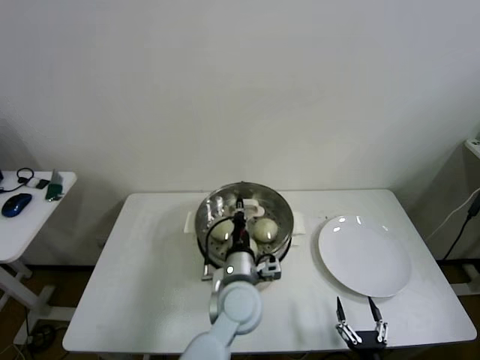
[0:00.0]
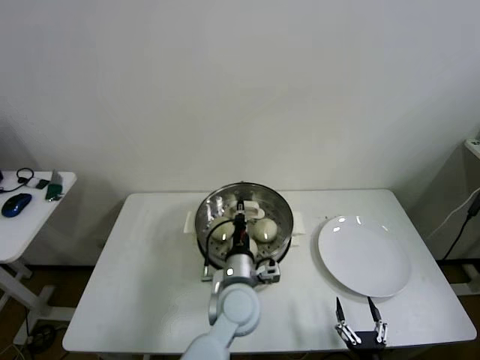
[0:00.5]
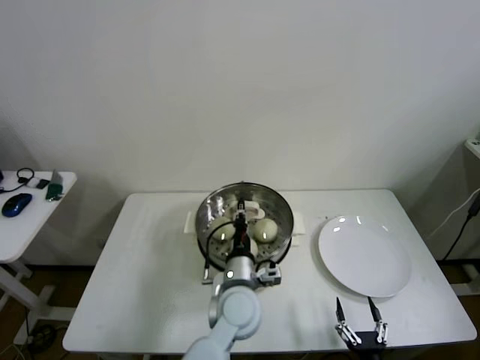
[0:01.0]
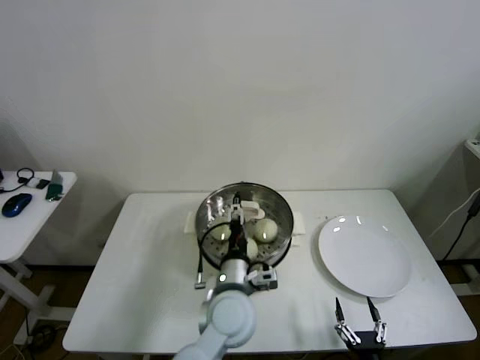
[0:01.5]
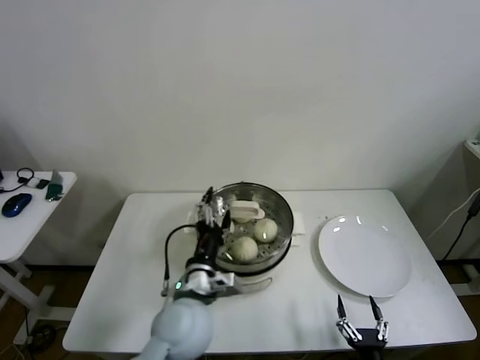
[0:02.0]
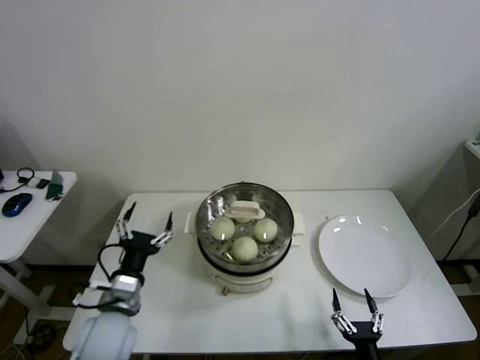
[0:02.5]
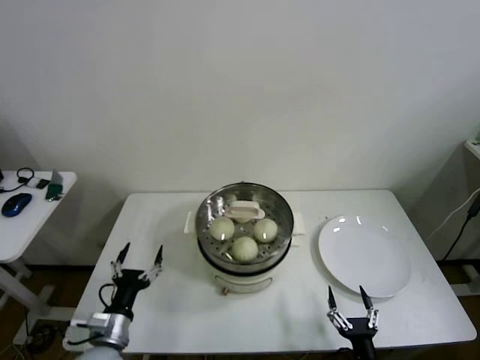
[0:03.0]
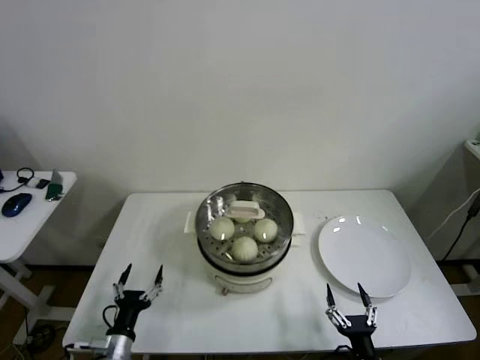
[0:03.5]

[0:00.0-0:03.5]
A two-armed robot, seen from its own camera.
0:00.0 to 0:02.0: The left gripper goes about 10 cm to the left, and opens its fingers.
0:02.0 to 0:03.5: The left gripper heads to the left and downward, covering about 30 cm.

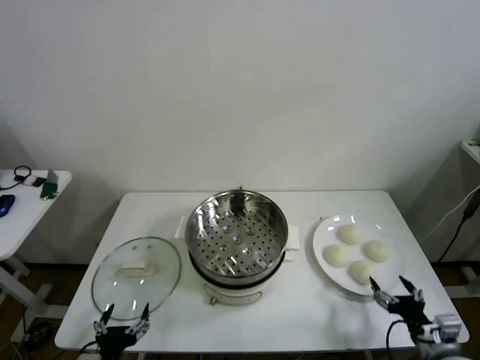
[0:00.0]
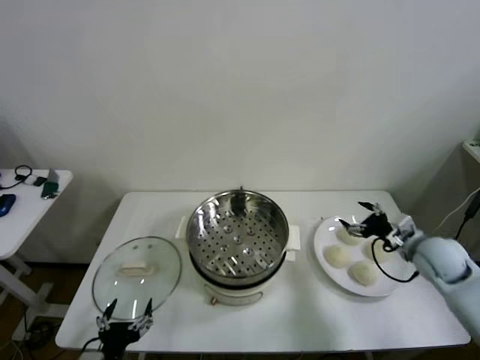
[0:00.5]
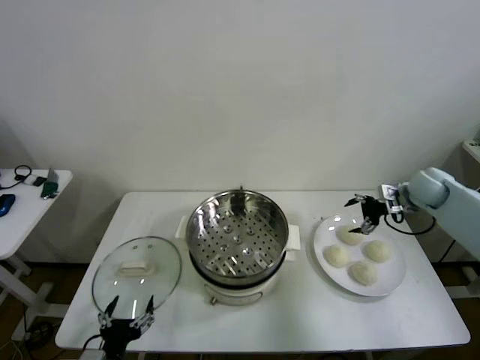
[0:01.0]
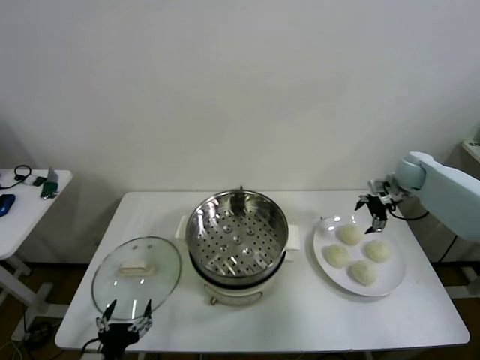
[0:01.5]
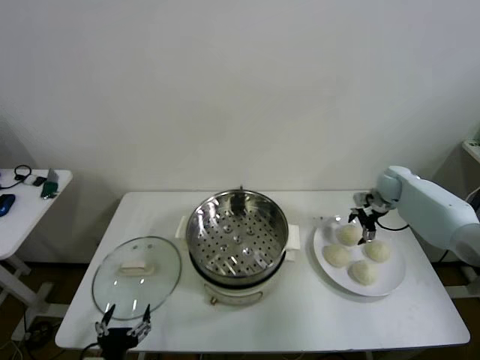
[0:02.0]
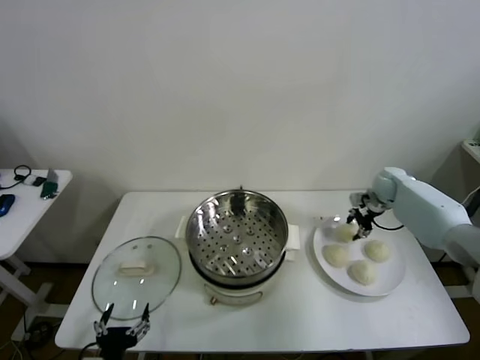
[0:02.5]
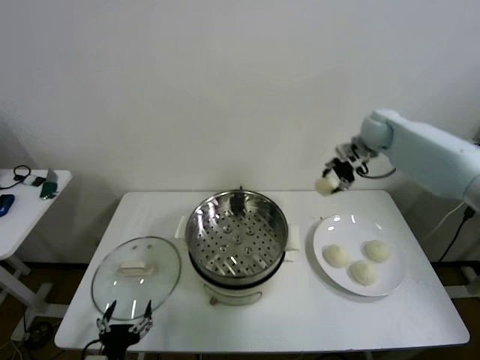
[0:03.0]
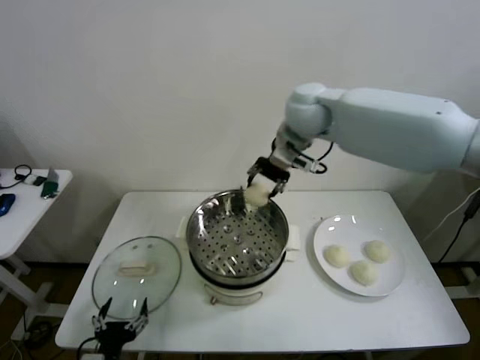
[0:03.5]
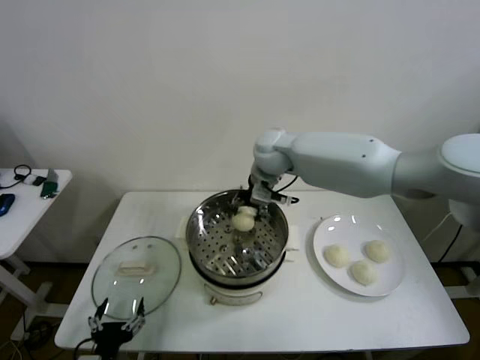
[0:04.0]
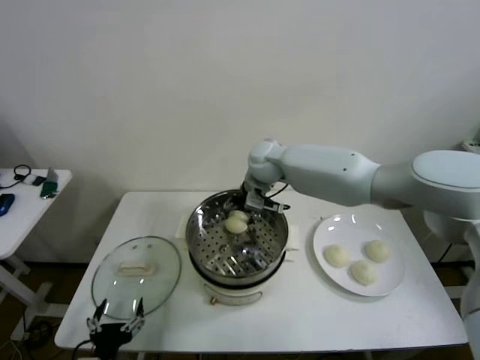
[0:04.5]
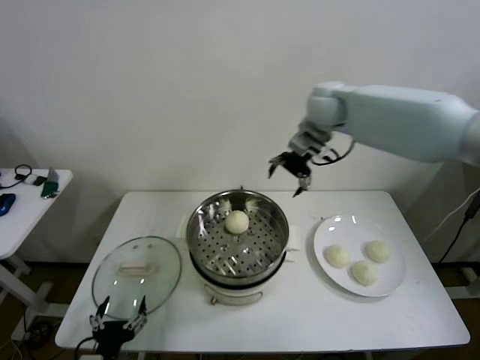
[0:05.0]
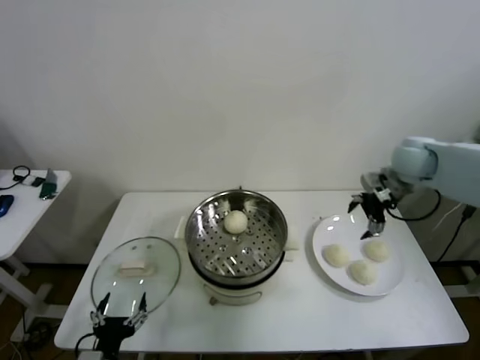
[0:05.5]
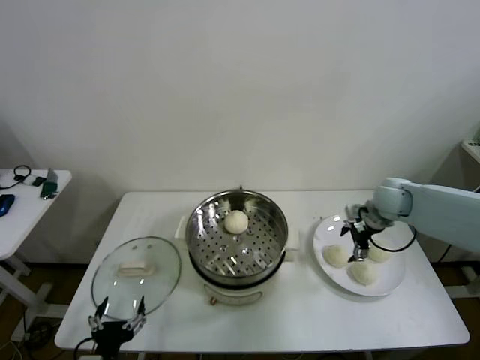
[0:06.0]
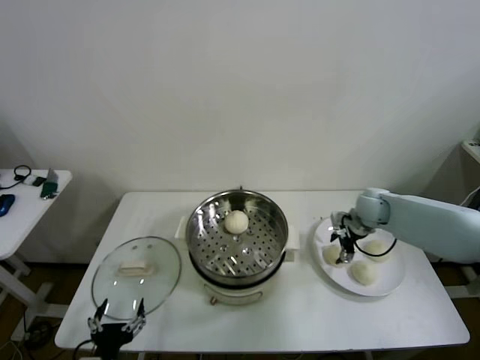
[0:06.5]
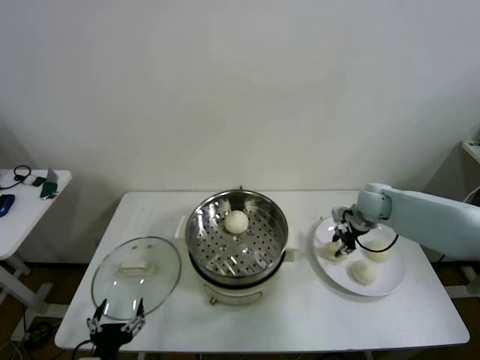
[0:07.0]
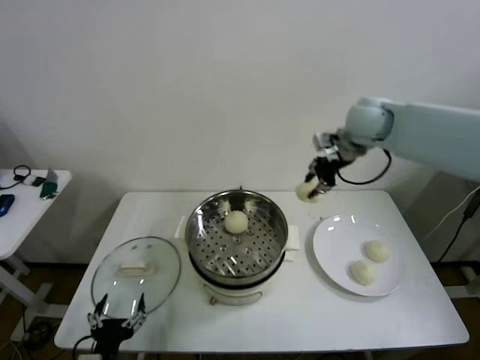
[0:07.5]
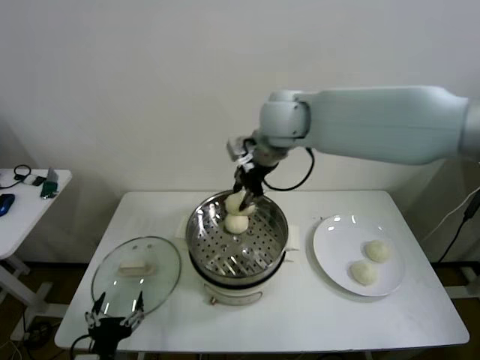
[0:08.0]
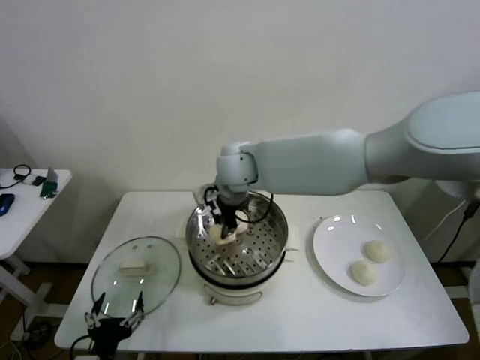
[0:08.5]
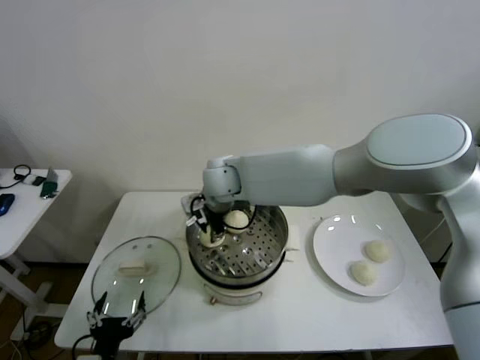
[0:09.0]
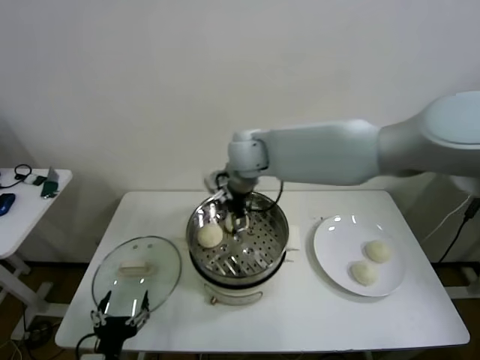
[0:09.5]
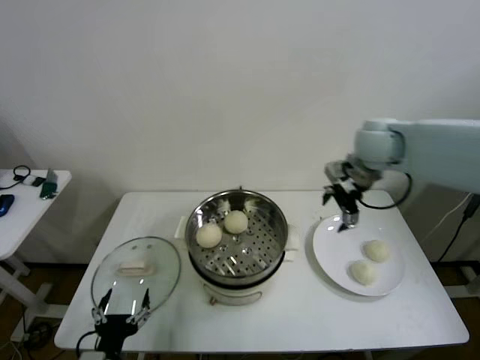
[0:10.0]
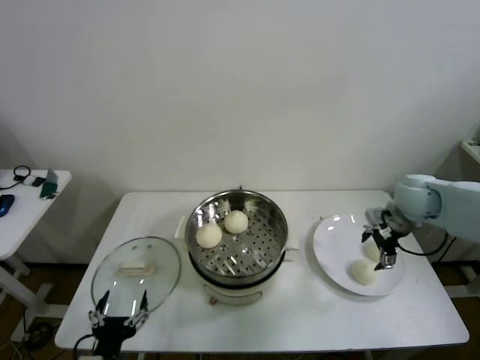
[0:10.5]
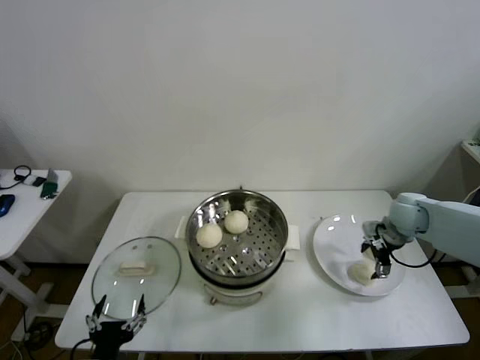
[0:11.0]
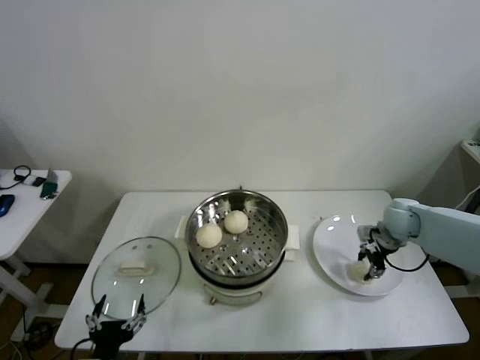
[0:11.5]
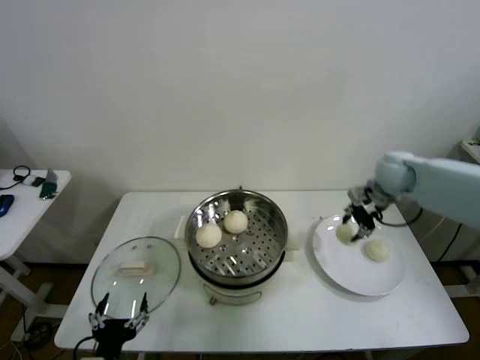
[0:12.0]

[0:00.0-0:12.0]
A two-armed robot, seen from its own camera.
Step, 0:00.0 to 0:02.0: Grasp the baozi in the plate with right gripper.
Step, 0:02.5 to 0:04.5: Place the baozi on the steamer with right gripper.
Step, 0:05.0 to 0:06.5: Grasp the baozi in the plate with right gripper.
Step, 0:07.0 to 0:09.0: Place the baozi on the steamer with right gripper.
Step, 0:09.5 to 0:11.5: Grasp the baozi in the plate with right gripper.
0:02.0 to 0:04.0: The right gripper travels to the left by approximately 35 cm, and closes.
0:04.0 to 0:06.0: The right gripper shifts some 30 cm to the right, and opens up.
0:06.0 to 0:08.0: The right gripper travels to the left and upward by approximately 35 cm, and closes.
0:08.0 to 0:10.0: The right gripper goes approximately 20 cm to the right, and opens.
0:10.0 to 0:12.0: The right gripper is displaced downward and to the right by roughly 10 cm, and closes up.

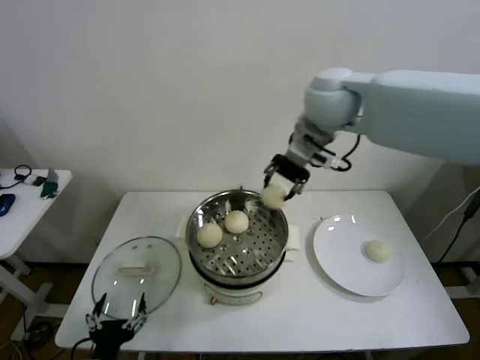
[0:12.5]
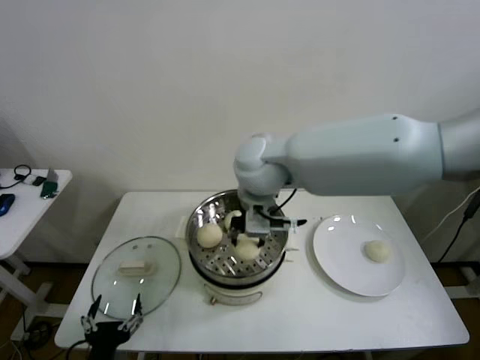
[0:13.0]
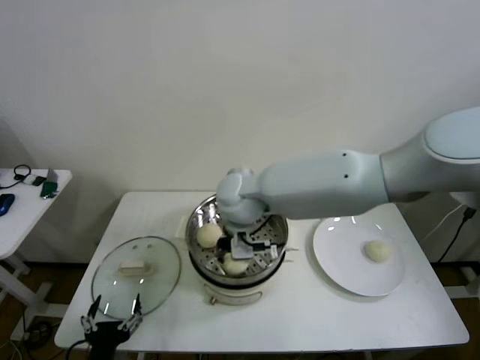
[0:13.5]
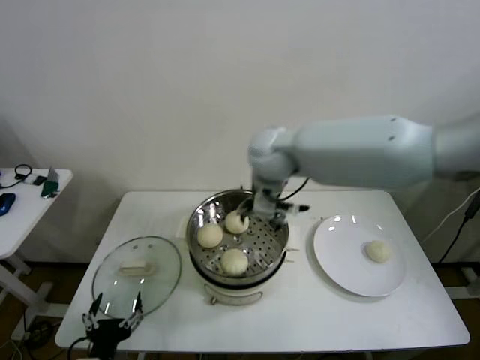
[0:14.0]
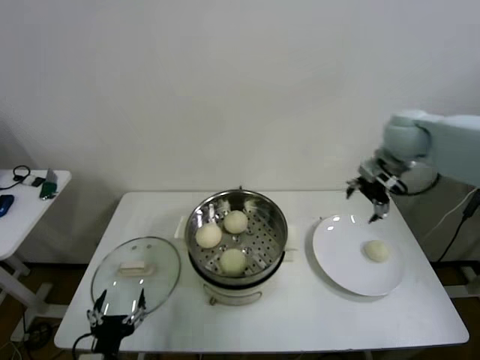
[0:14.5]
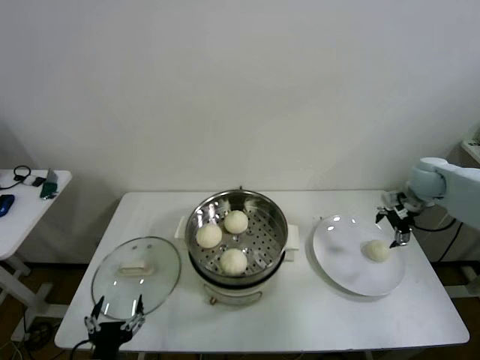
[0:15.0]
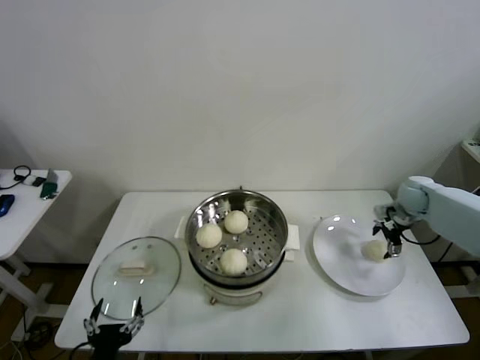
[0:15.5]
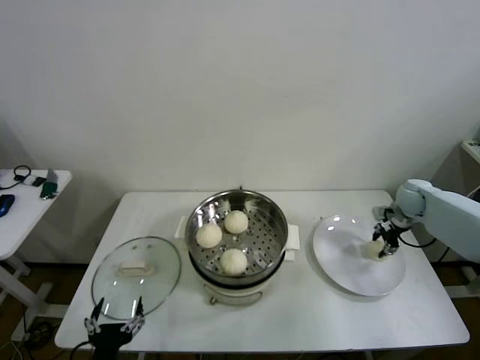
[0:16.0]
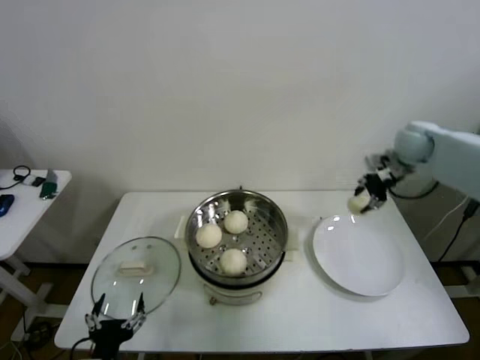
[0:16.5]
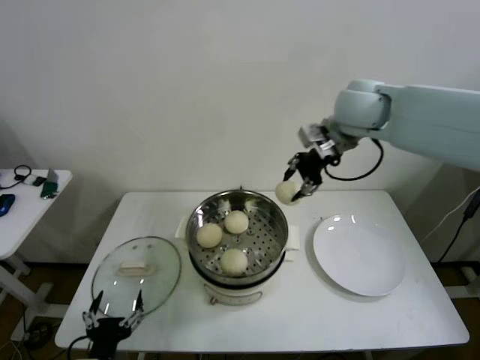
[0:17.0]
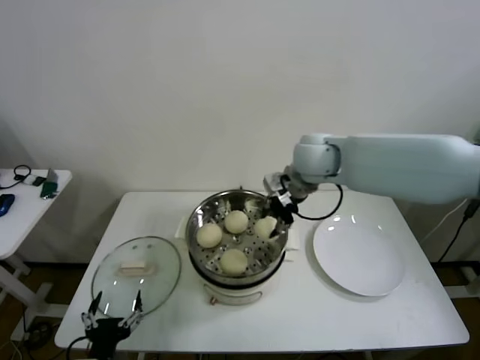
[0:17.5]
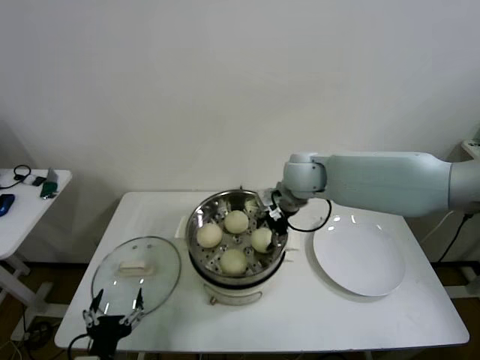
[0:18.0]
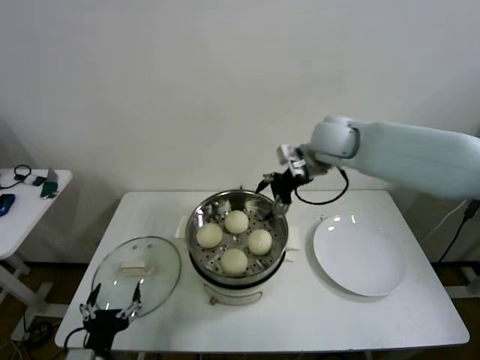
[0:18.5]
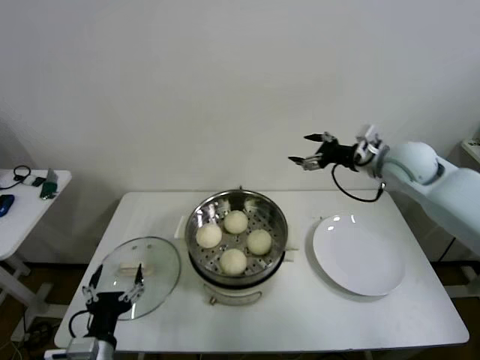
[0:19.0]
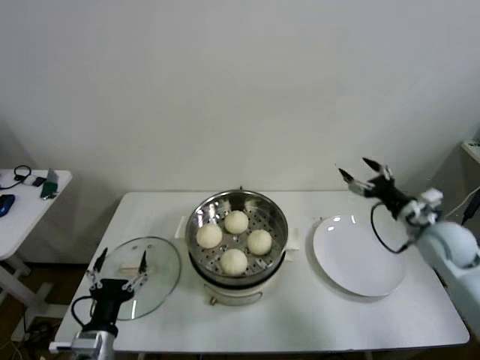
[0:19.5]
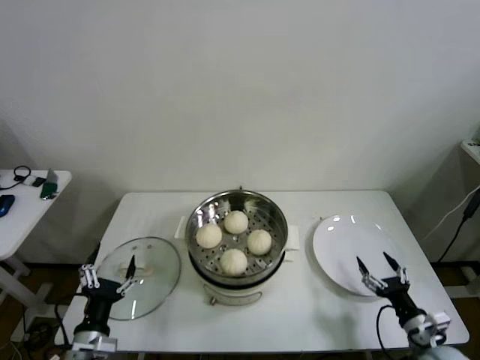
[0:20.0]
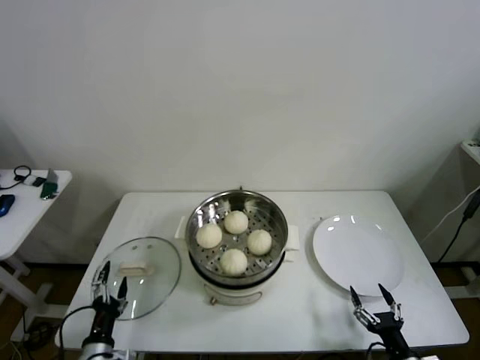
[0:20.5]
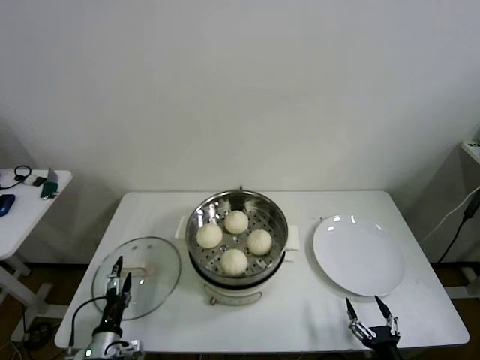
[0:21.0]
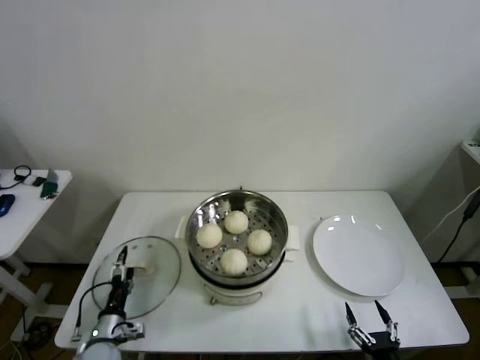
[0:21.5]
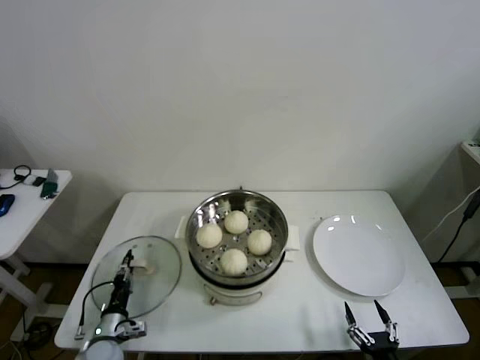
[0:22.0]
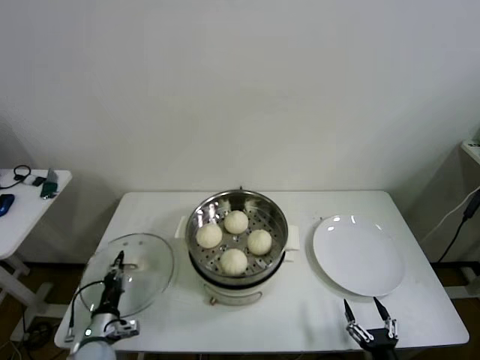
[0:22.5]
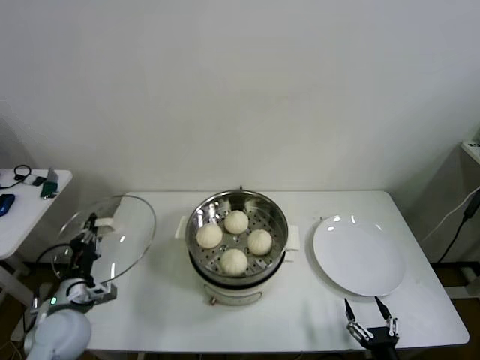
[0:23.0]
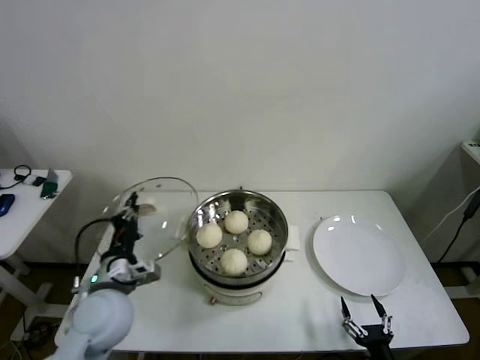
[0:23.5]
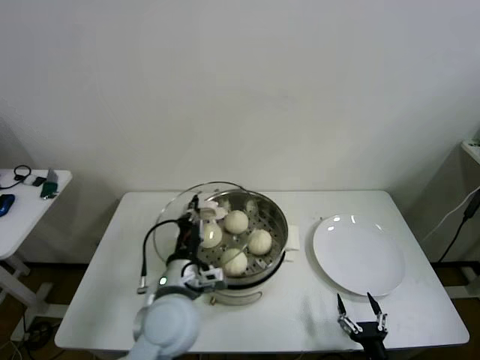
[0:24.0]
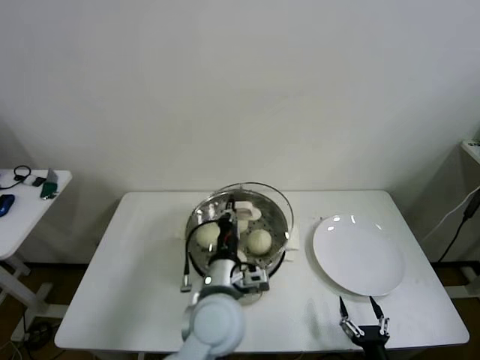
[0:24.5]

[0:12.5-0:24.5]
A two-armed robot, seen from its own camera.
Step, 0:12.5 to 0:13.5: Place the baozi on the steamer with right gripper.
Step, 0:14.0 to 0:16.0: Grasp the baozi in the plate with right gripper.
Step, 0:16.5 to 0:18.0: Place the baozi on the steamer with right gripper.
Step, 0:18.5 to 0:22.0: Grasp the pot lid with left gripper.
0:12.5 to 0:14.5: The right gripper is displaced to the right and downward by approximately 20 cm, and opens up.
0:14.5 to 0:16.5: The right gripper moves to the right, some 5 cm, travels downward and back again, roughly 20 cm each way, and closes its fingers.
0:16.5 to 0:18.5: The right gripper is displaced to the left by about 20 cm, and opens its fingers.
0:18.5 to 0:20.5: The left gripper travels downward and to the left by roughly 10 cm. The right gripper goes about 60 cm backward, downward and to the right.
0:20.5 to 0:22.5: The left gripper goes about 10 cm forward and downward, and closes its fingers. The right gripper moves about 5 cm.
0:22.5 to 0:24.5: The left gripper goes approximately 35 cm to the right and upward.
